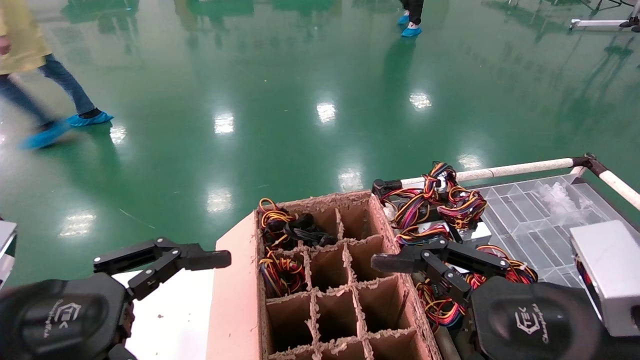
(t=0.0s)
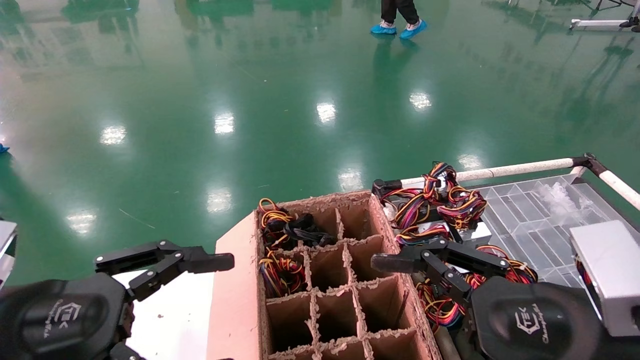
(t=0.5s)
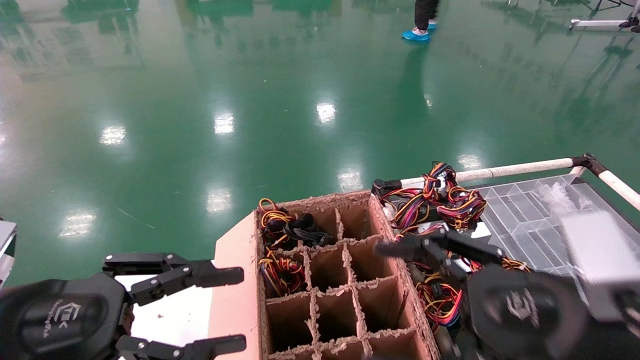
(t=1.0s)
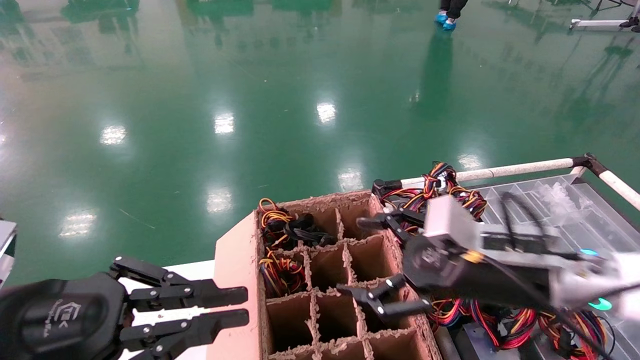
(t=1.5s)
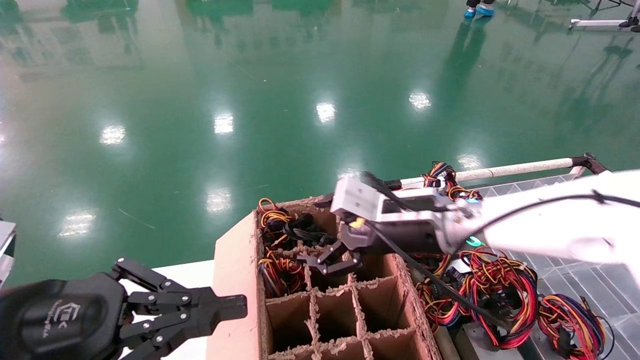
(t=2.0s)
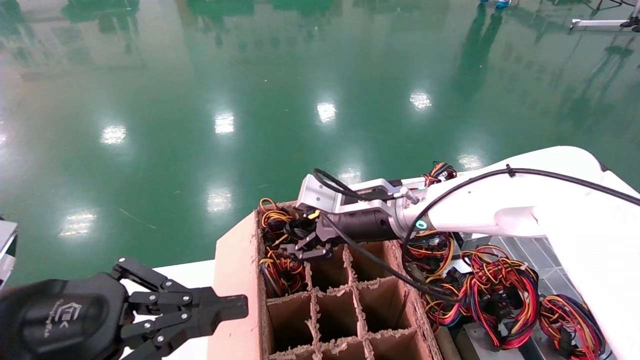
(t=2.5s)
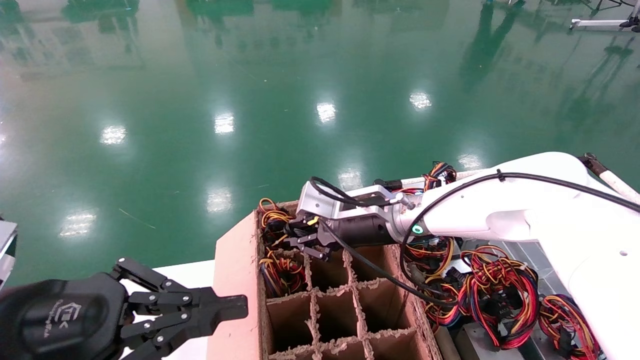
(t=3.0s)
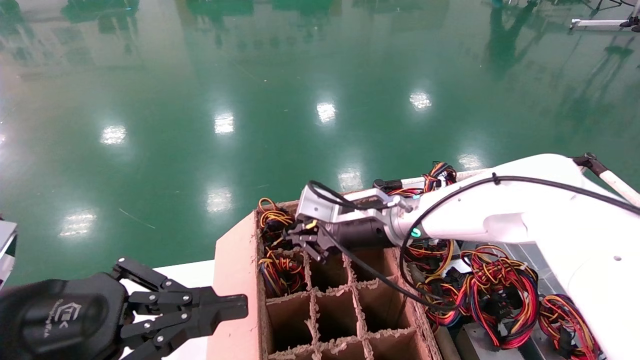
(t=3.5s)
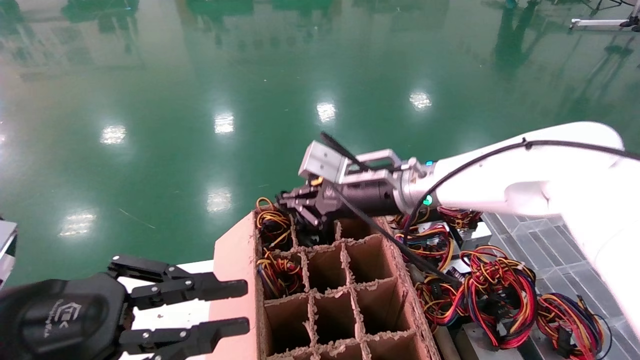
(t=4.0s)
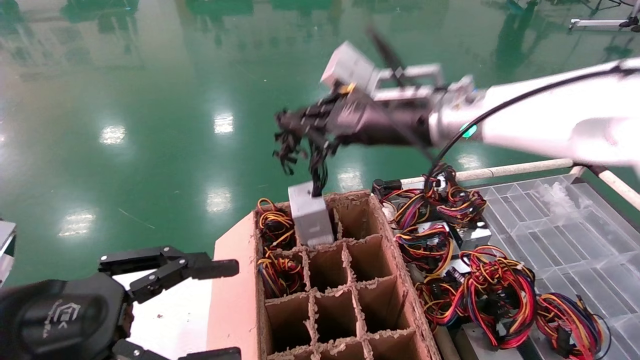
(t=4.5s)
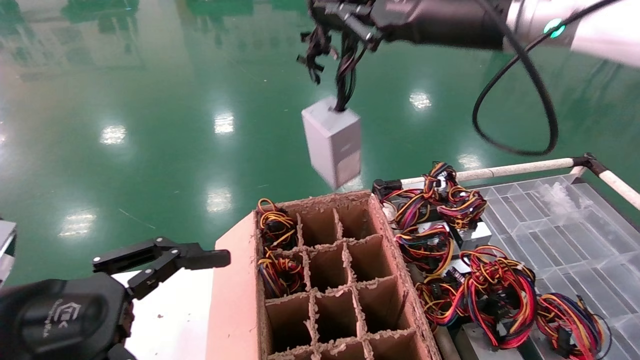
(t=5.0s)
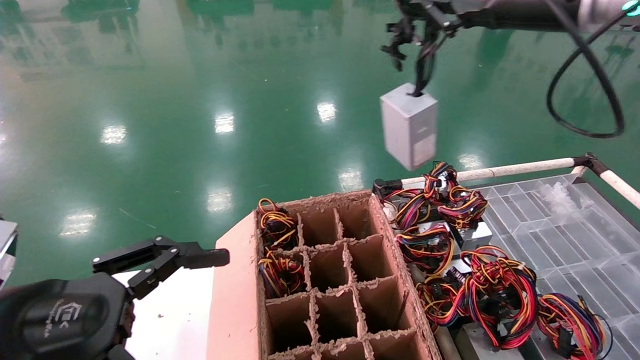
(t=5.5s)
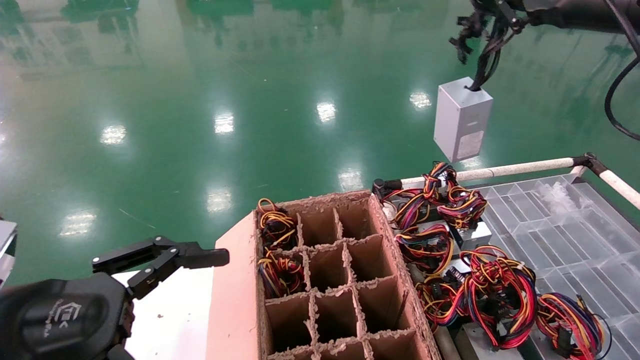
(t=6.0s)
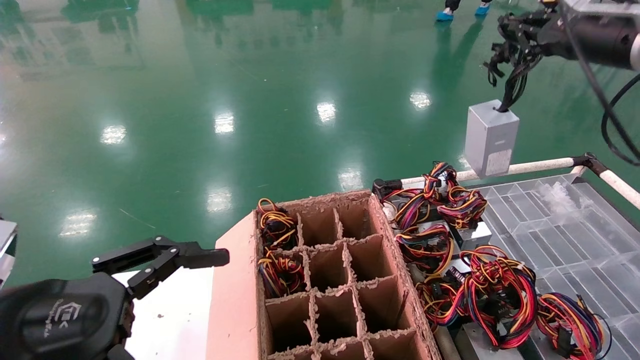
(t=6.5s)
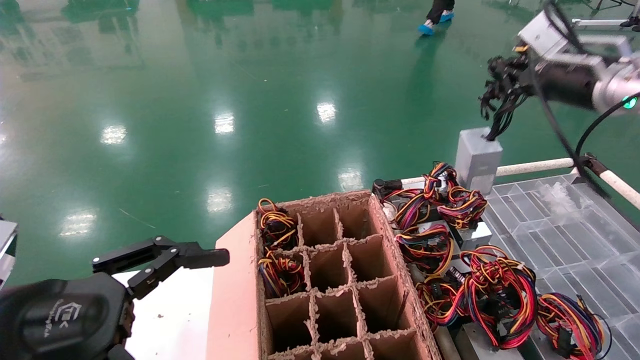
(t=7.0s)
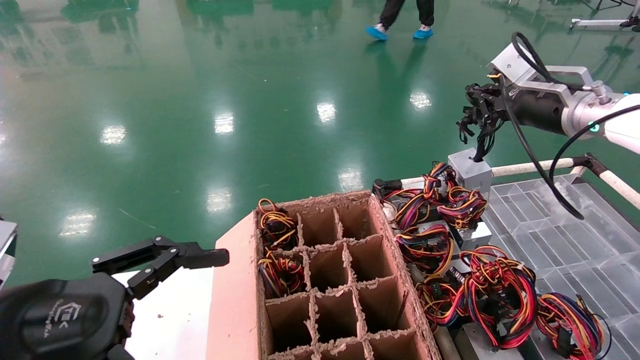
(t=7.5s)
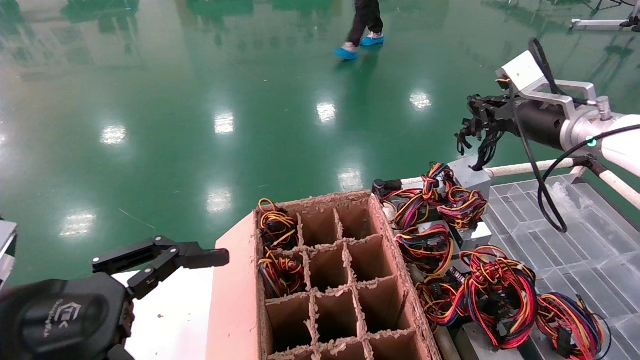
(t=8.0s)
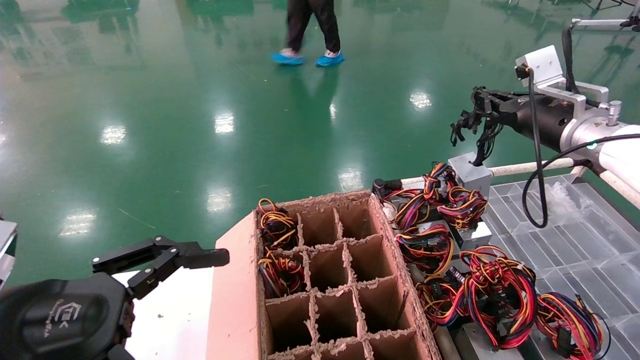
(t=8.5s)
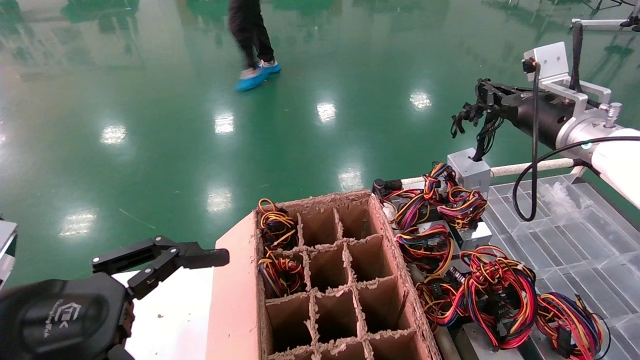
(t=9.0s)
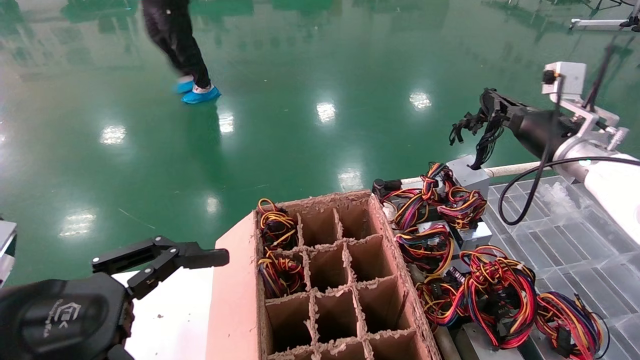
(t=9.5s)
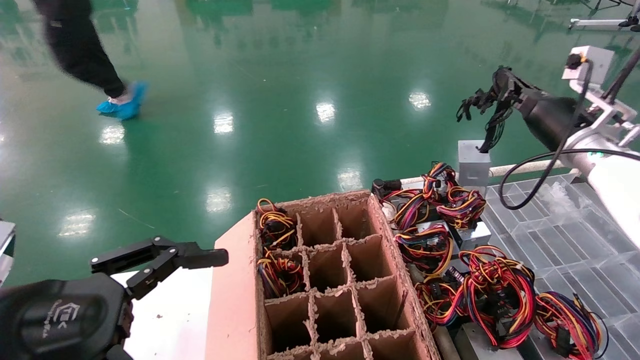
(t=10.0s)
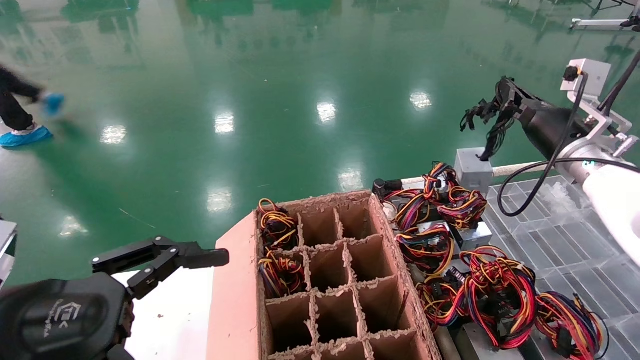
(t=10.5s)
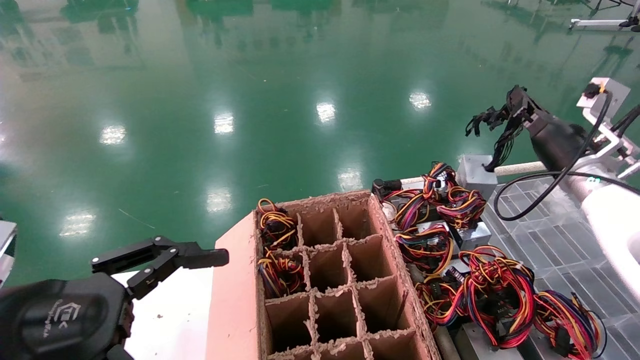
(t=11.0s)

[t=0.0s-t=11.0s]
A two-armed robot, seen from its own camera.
Step, t=2.0s to t=3.5s: Grab and lift the power supply from the large box.
t=0.0s to t=2.0s: The right gripper moves forward and to the left, approximately 25 cm. The left gripper closes.
t=2.0s to t=3.5s: The right gripper ends up approximately 5 cm from where it was, and closes.
t=3.5s to t=5.5s: The left gripper opens; the right gripper moves upward and to the right, some 30 cm.
t=5.5s to t=7.5s: The right gripper travels downward, forward and to the right by approximately 15 cm.
t=9.0s to t=11.0s: The right gripper goes some 5 cm downward.

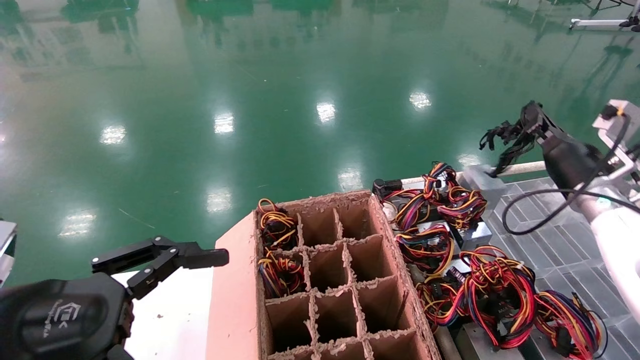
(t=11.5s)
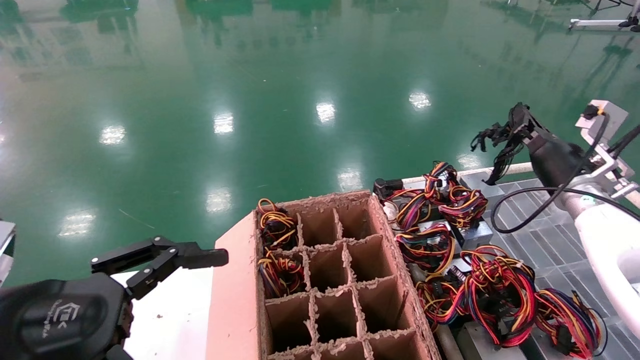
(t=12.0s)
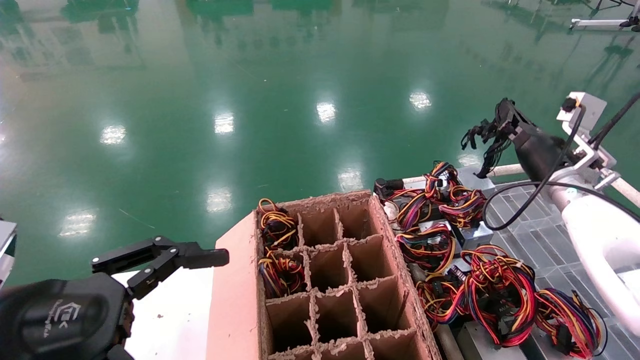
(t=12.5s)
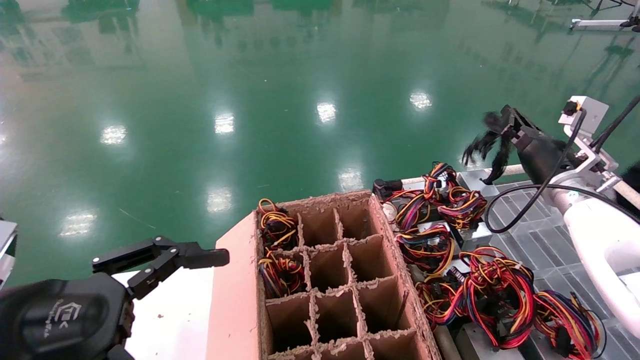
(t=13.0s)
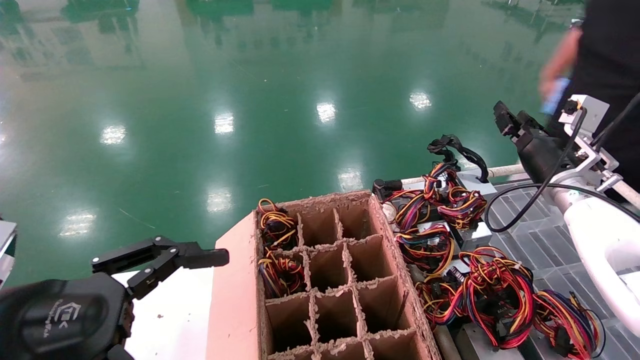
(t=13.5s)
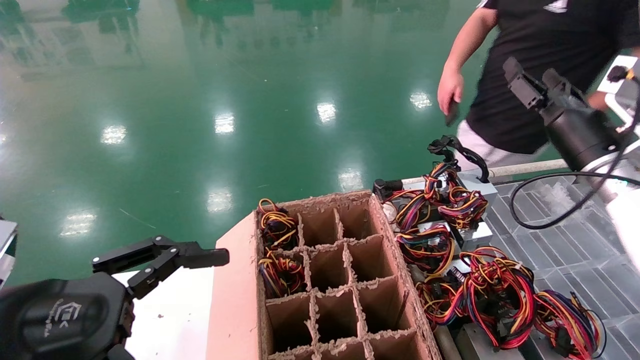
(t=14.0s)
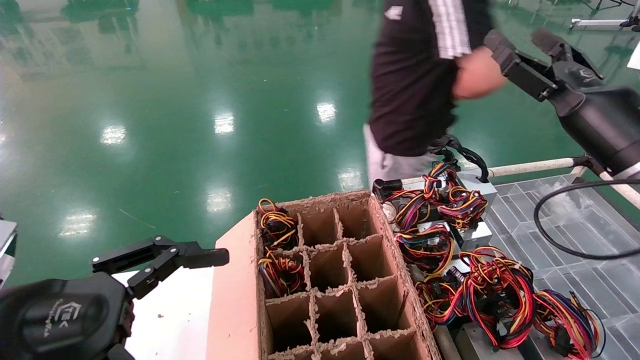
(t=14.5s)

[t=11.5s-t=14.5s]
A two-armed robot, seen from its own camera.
t=11.5s to t=13.0s: The grippers make only small movements.
t=13.0s to t=14.5s: The right gripper is displaced backward and upward by some 15 cm, and opens.

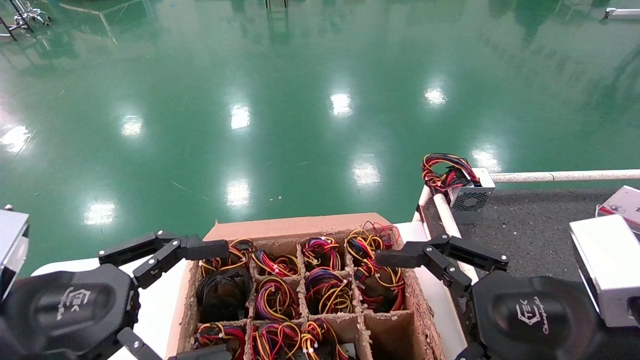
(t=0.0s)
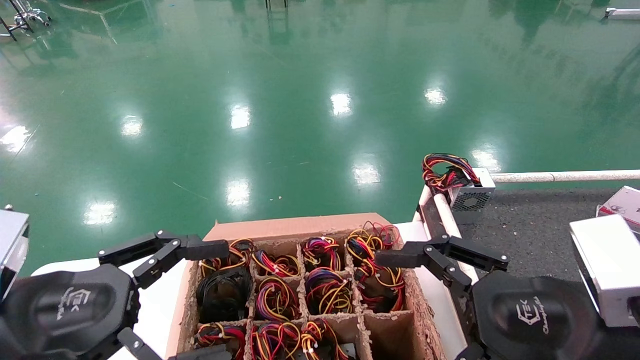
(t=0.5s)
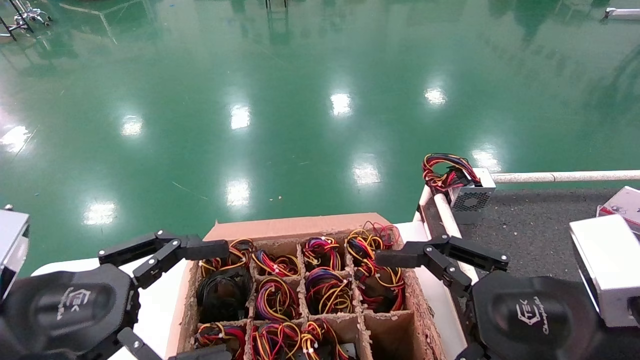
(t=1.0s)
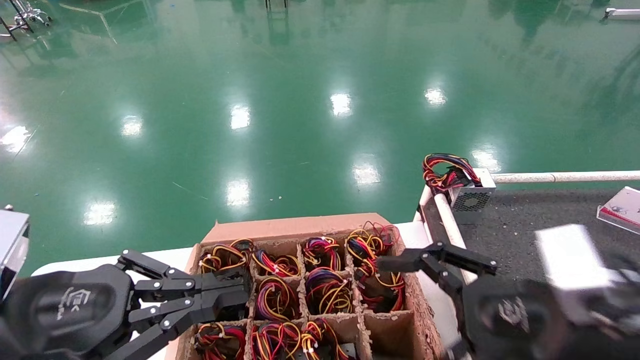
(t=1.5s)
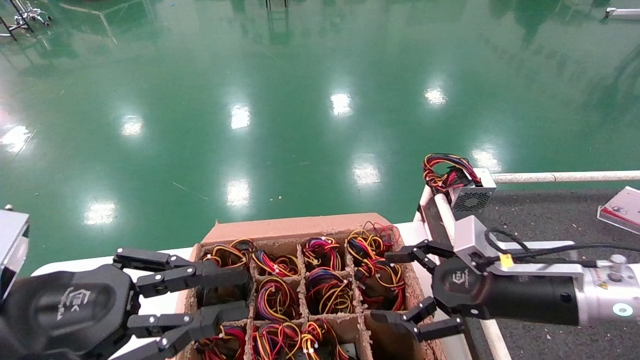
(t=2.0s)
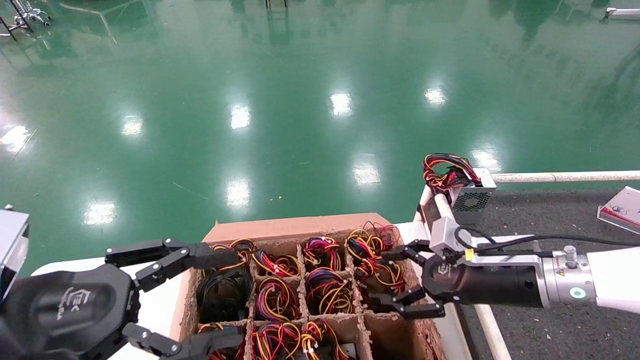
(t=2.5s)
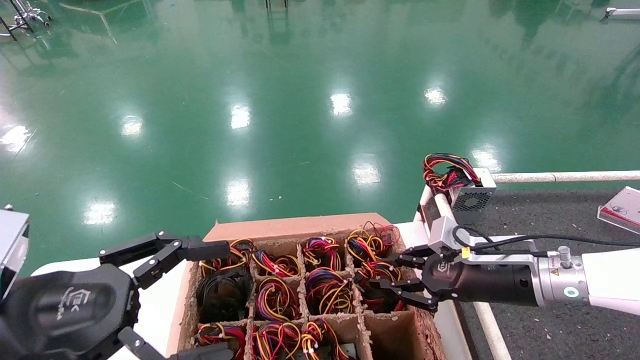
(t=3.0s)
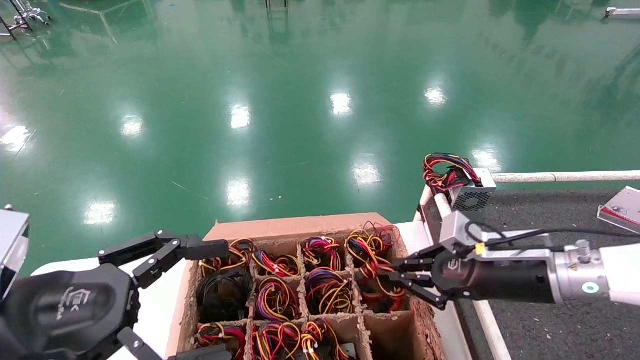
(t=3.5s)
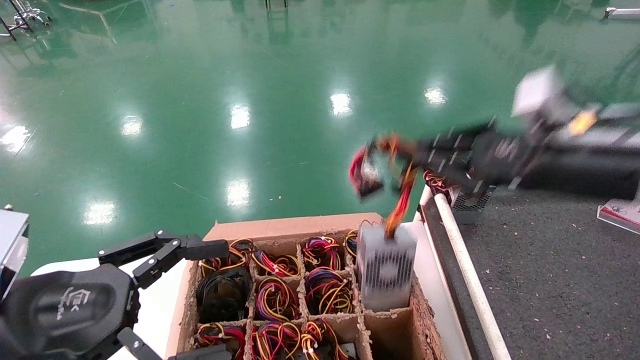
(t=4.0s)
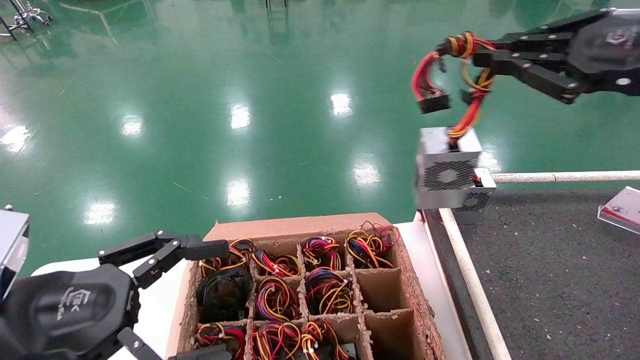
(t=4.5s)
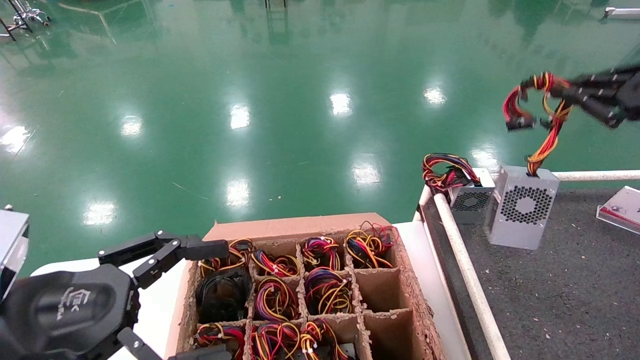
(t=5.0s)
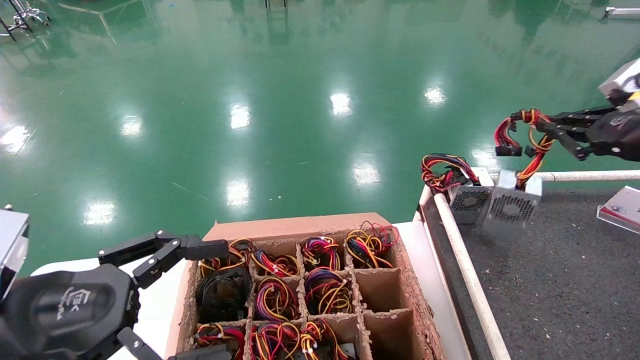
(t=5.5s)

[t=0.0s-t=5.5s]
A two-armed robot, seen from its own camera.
t=0.0s to t=2.0s: Both grippers stay put.
t=2.0s to t=3.5s: The left gripper closes.
t=3.5s to t=5.5s: The right gripper moves forward, about 20 cm, and closes its fingers, while the left gripper opens up.
